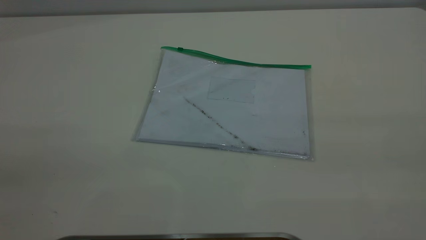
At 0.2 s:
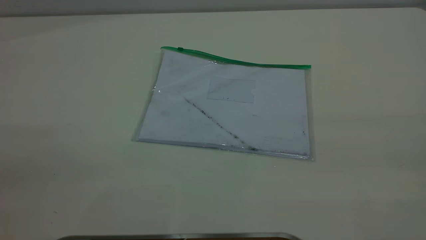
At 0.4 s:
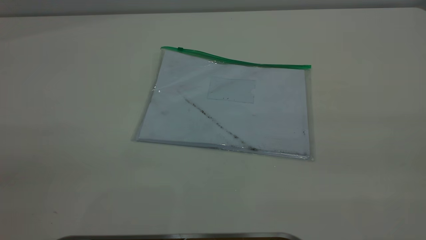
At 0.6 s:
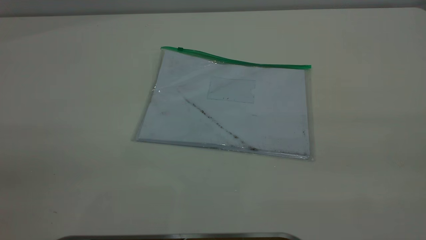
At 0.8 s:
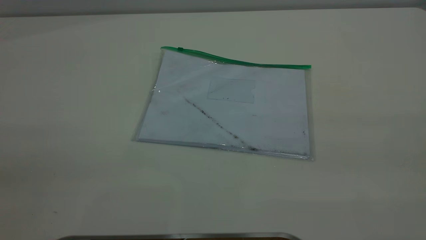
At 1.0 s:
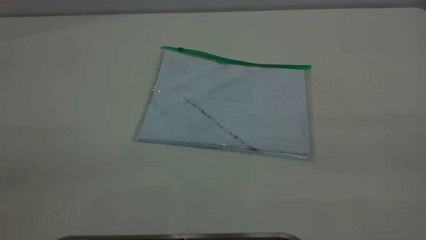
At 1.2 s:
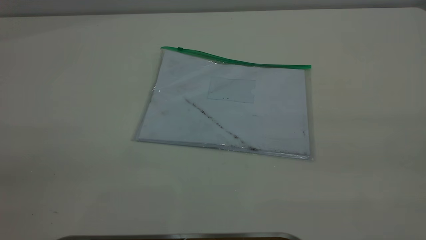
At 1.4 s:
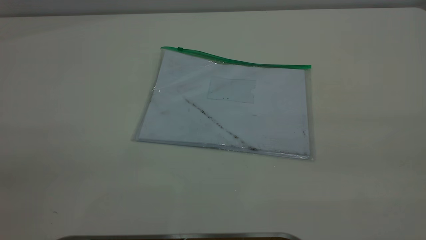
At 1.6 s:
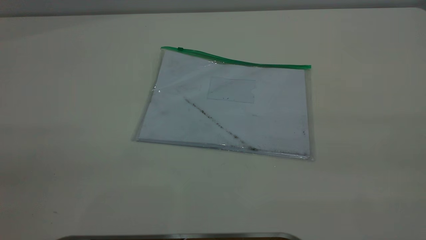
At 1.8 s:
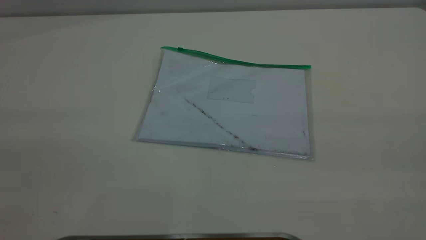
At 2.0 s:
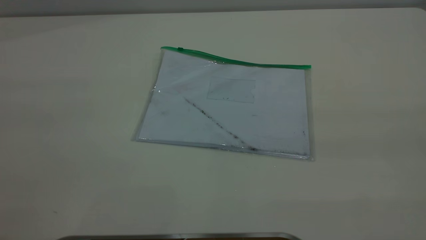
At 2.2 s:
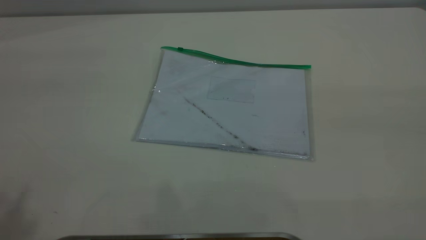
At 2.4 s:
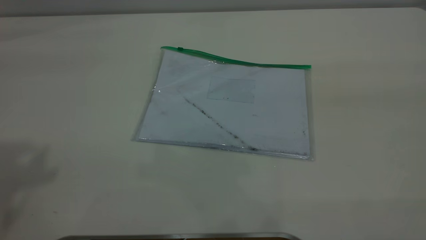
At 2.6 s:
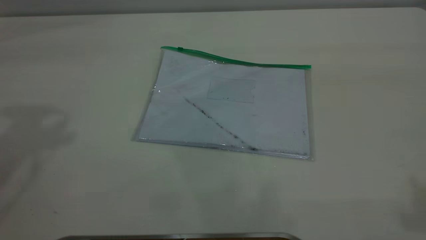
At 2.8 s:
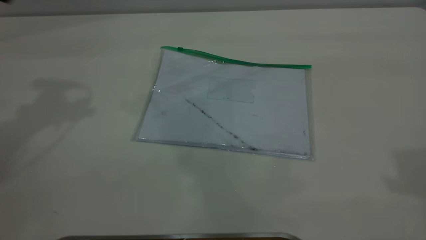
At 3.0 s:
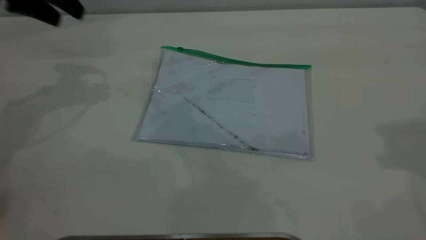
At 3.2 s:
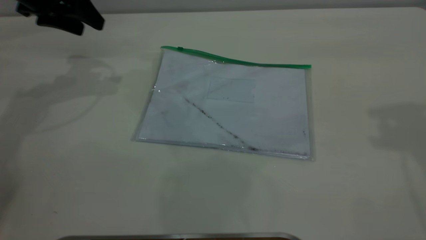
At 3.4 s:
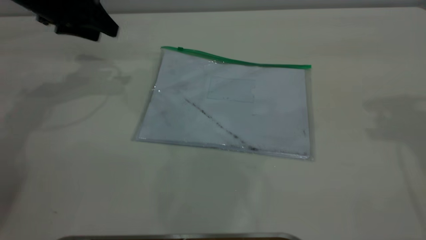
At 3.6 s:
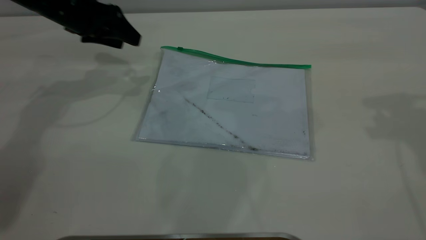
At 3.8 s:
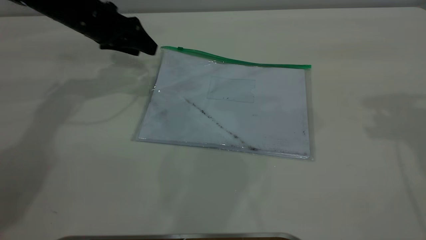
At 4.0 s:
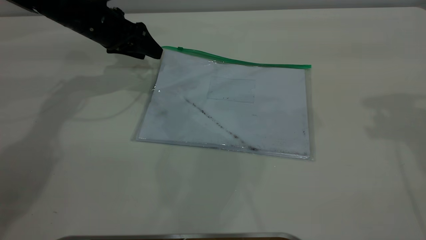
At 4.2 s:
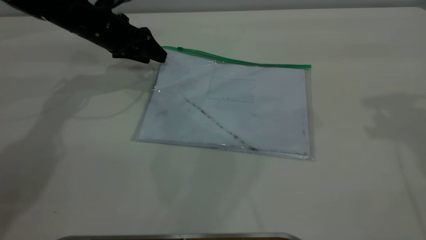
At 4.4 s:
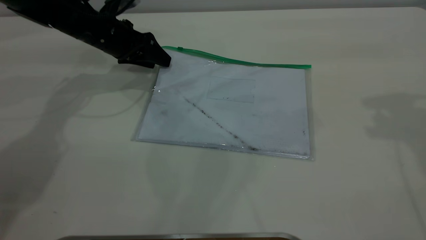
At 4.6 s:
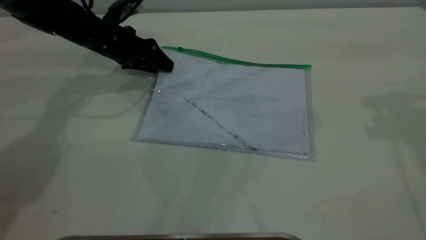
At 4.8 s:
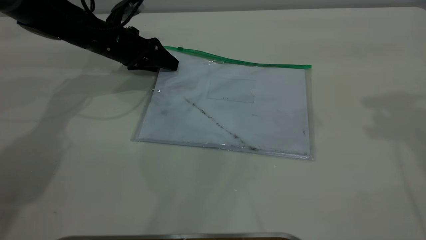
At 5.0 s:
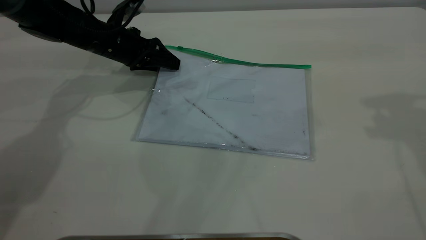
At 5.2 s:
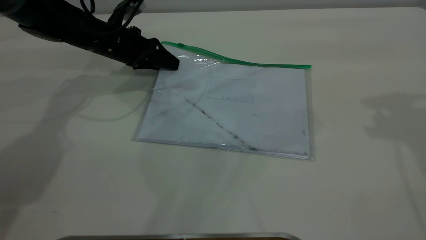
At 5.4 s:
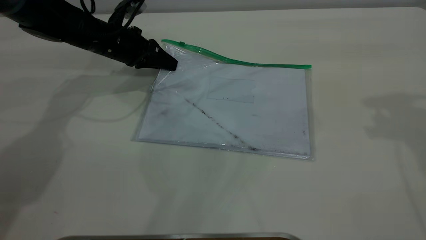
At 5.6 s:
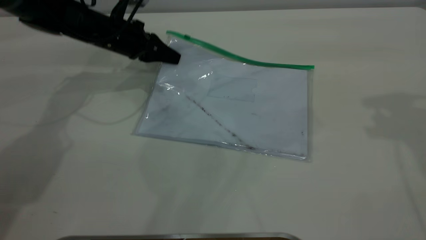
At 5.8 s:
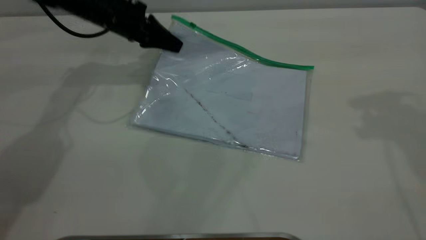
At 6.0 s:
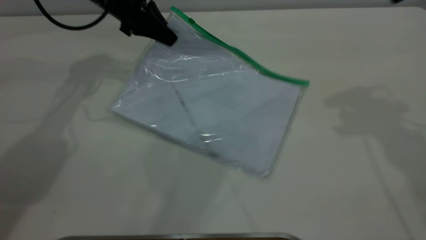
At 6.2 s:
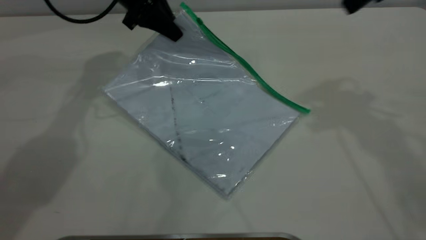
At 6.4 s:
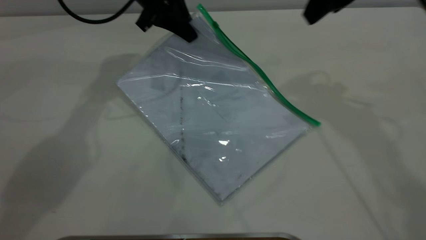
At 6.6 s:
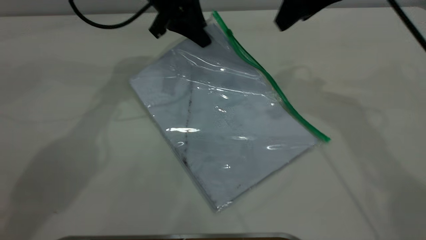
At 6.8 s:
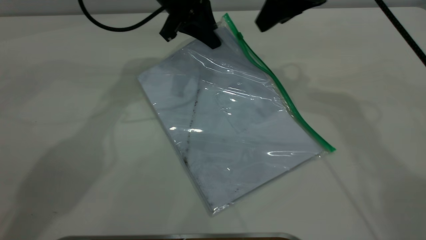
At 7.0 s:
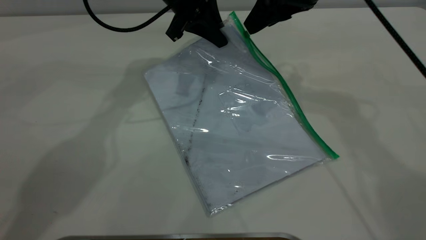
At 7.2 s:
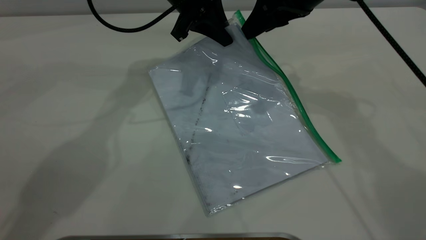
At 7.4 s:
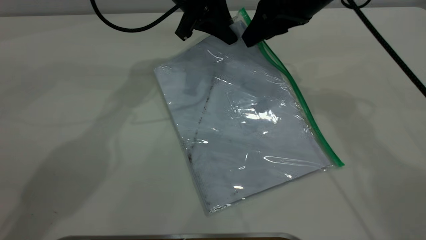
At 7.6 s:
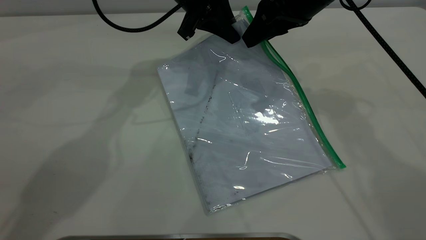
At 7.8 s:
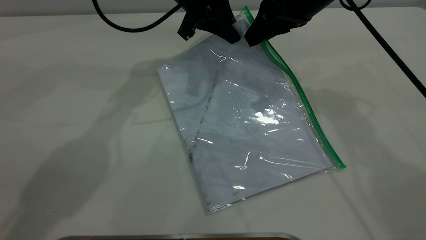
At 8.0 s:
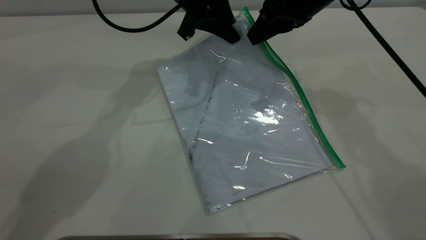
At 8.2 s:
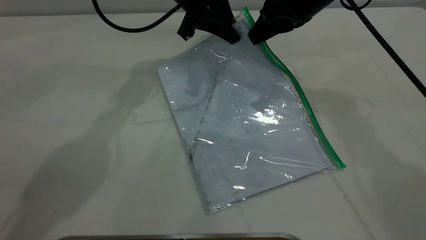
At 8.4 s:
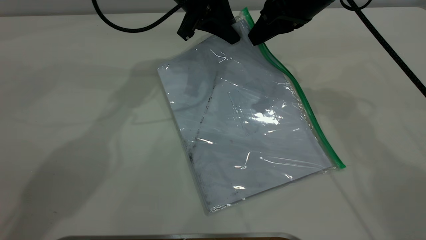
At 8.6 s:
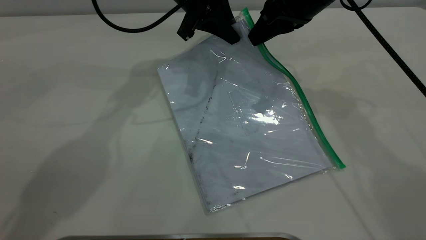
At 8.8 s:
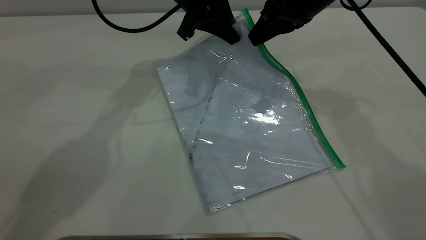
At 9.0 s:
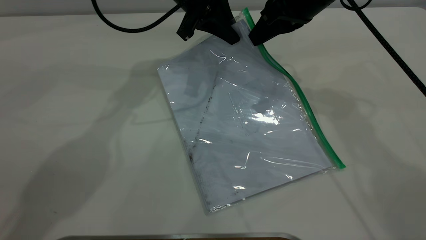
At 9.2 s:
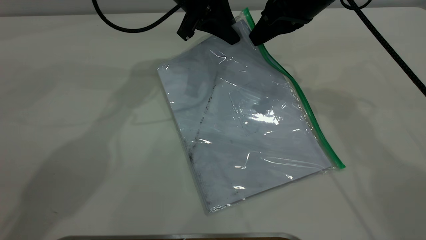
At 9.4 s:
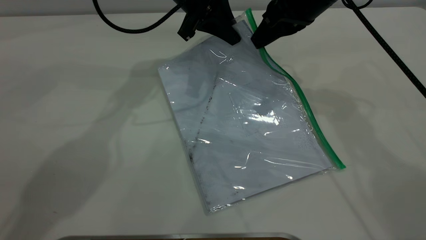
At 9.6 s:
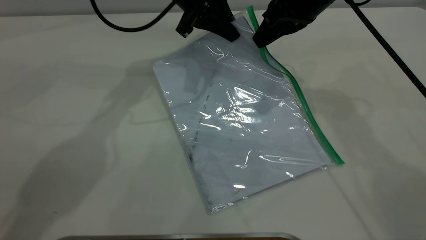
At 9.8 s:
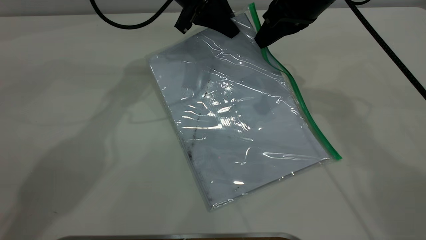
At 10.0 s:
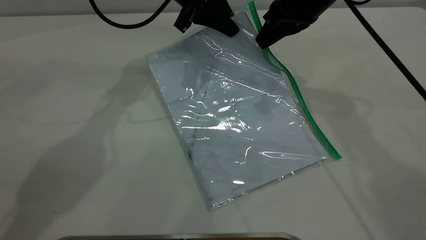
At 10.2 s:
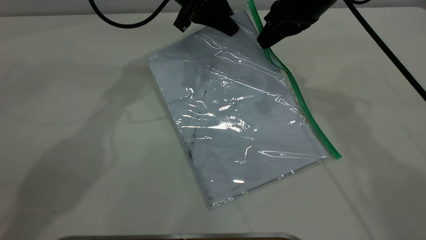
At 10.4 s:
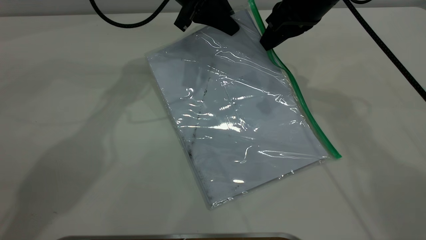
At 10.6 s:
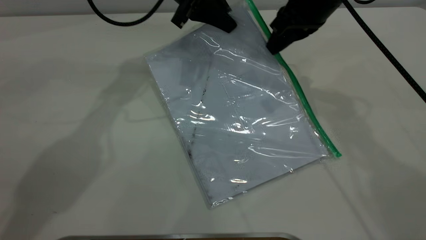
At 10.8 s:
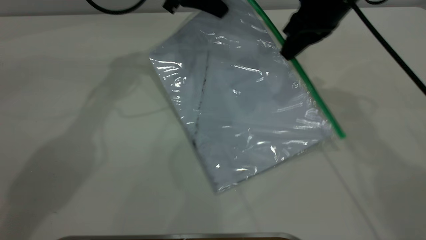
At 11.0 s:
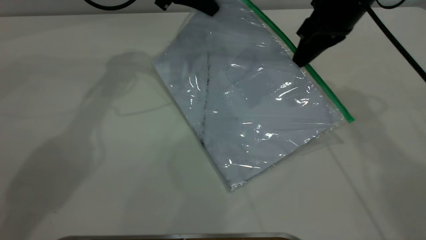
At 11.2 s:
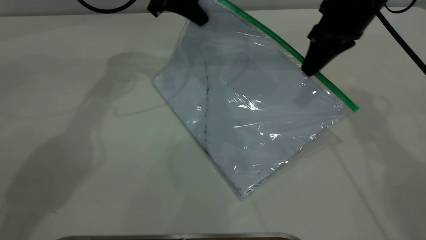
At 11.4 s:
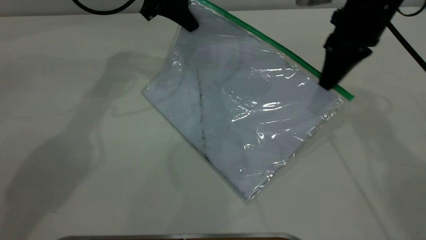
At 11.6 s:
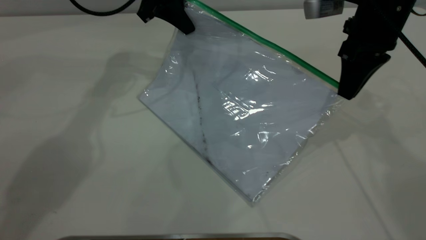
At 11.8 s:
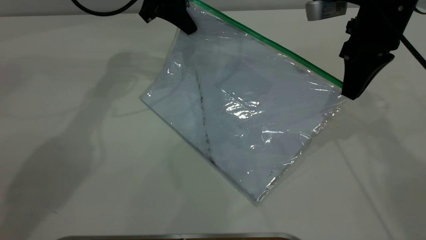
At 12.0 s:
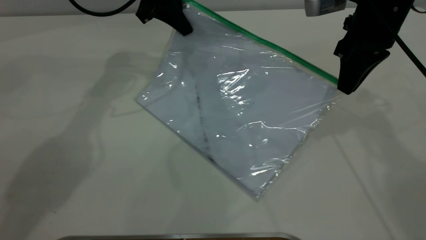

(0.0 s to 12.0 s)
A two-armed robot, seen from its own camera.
Step, 0.0 s - 5.8 s: Pick up the transparent plastic bag with the left gripper.
0.0 s - 1.6 s: Both grippers stay put.
1.6 s - 3.0 s: The left gripper goes some 40 cm forward.
3.0 s - 4.4 s: The right gripper is displaced forward by some 5 cm, while the left gripper heads downward and to the right, covering roughly 15 cm.
4.4 s - 6.0 s: The right gripper moves to the left, roughly 5 cm; the left gripper goes some 5 cm upward, and closes up.
6.0 s - 7.6 s: The right gripper goes approximately 15 cm to the left, downward and forward, while the left gripper shifts some 10 cm to the right.
7.6 s - 9.0 s: The right gripper closes its fingers.
9.0 s - 10.4 s: The grippers move only a little.
10.4 s - 12.0 s: The right gripper shifts some 5 cm to the right. The left gripper moves to the left, some 5 cm.

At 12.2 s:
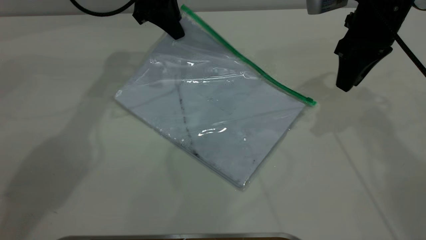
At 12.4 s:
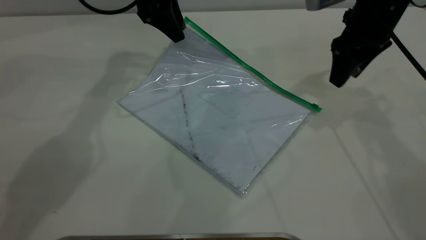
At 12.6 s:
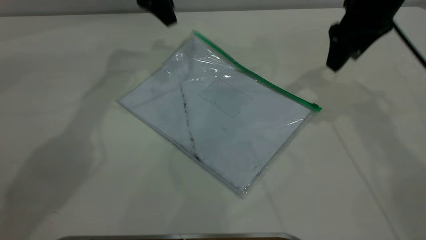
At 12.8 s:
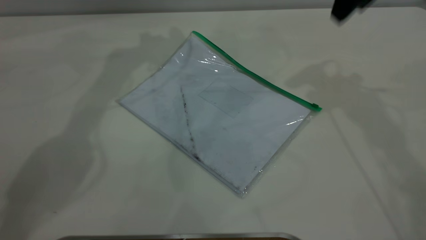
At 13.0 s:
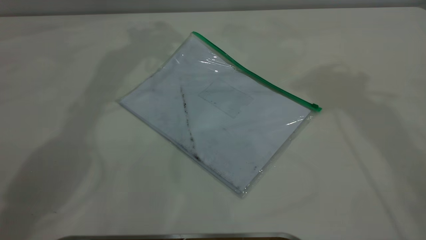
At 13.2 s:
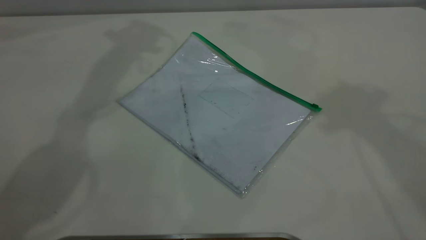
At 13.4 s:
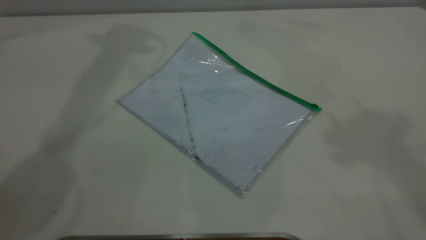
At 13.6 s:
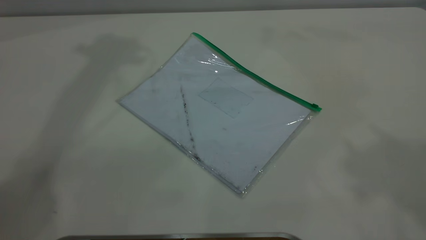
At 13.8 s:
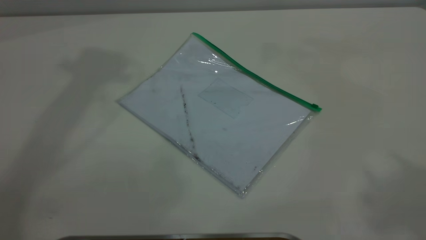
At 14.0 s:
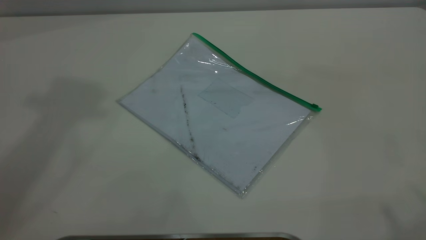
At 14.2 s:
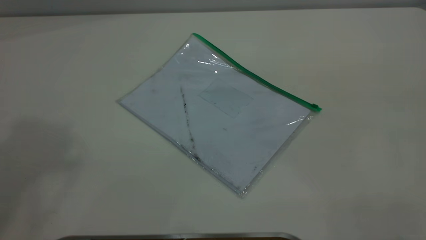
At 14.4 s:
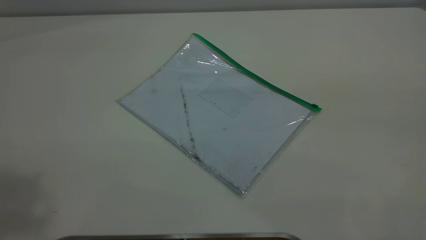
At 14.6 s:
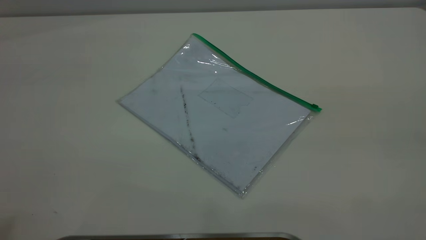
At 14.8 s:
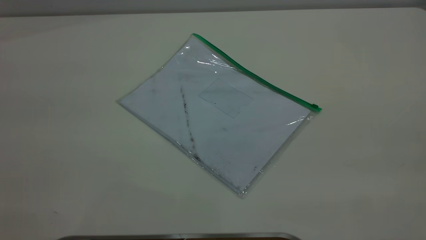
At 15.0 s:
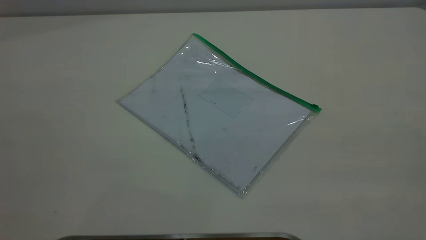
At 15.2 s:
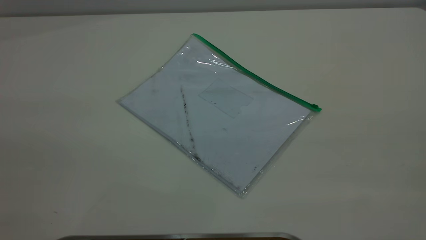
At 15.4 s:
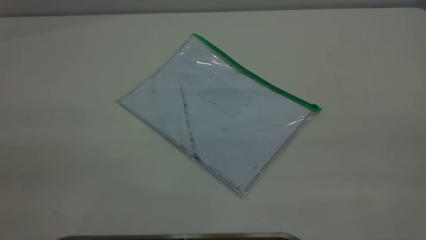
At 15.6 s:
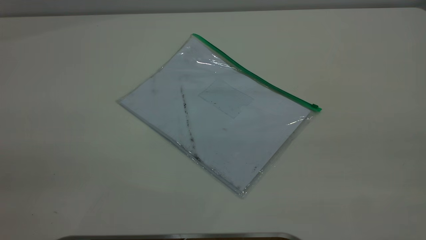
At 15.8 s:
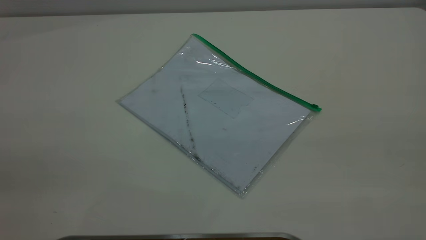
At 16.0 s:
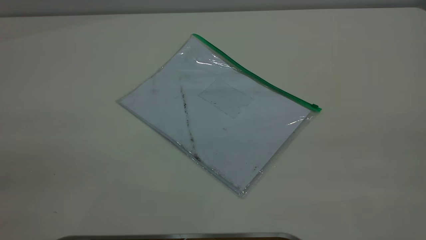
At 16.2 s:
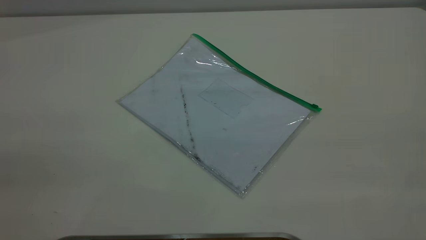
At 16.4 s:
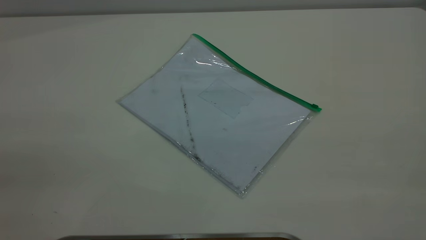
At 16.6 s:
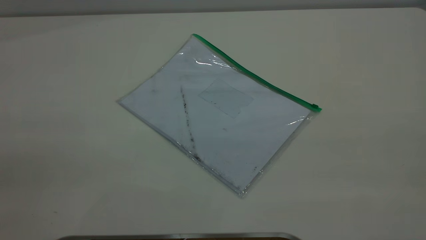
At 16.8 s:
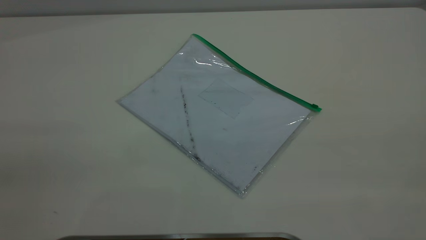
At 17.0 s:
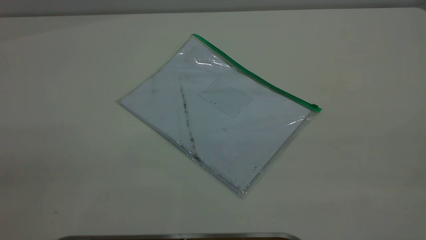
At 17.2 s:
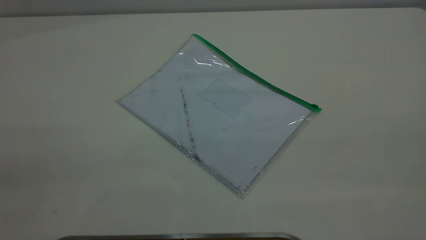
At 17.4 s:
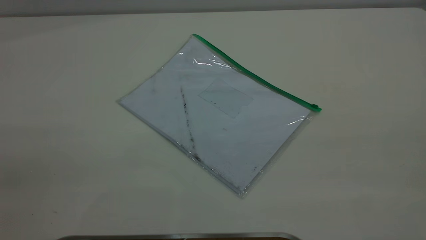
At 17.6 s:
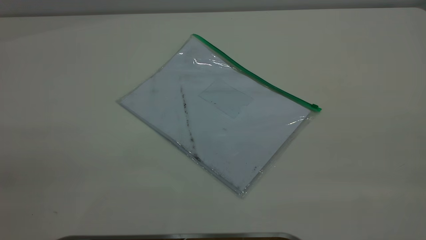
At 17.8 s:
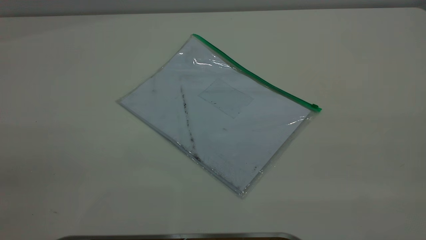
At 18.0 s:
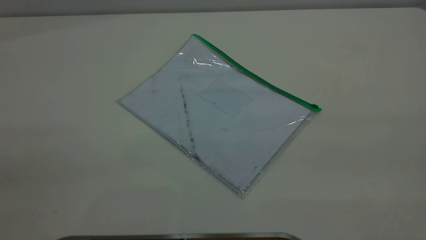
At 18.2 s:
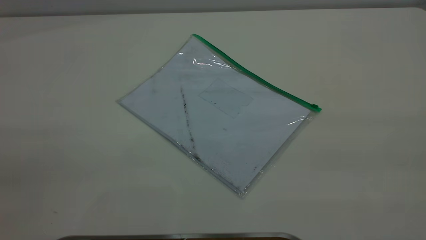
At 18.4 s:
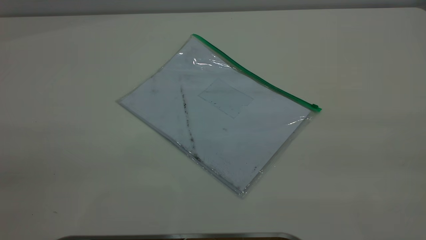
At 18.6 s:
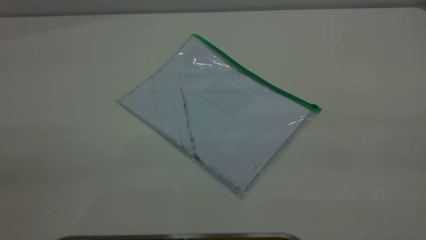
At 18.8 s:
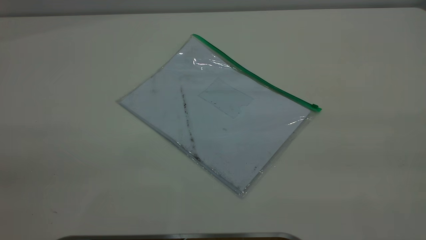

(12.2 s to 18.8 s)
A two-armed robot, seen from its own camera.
Step, 12.2 s - 12.4 s: Place the transparent plastic bag.
12.2 s - 13.8 s: The right gripper goes roughly 40 cm upward and backward, and opens; the left gripper moves upward, roughly 40 cm, and opens up.
